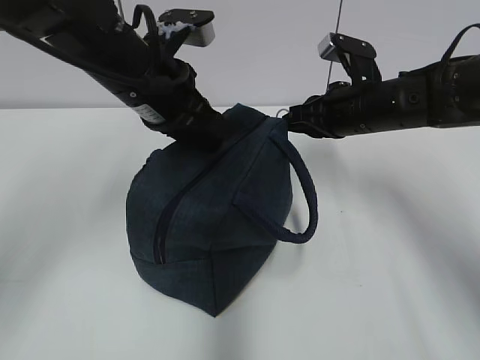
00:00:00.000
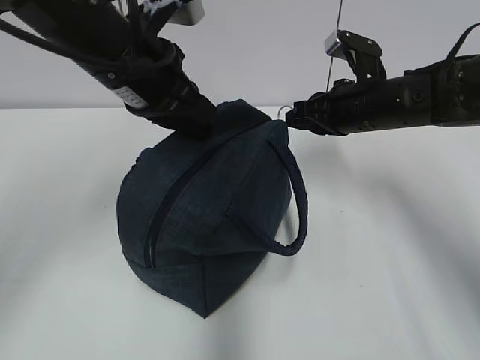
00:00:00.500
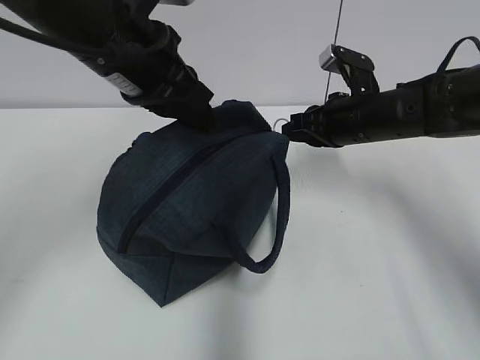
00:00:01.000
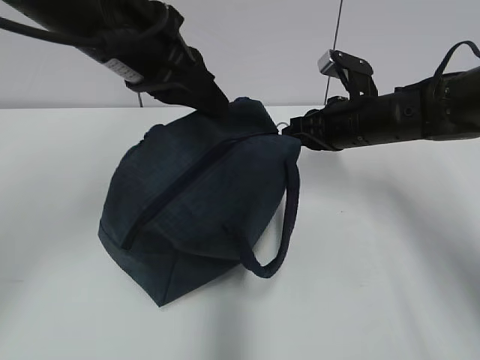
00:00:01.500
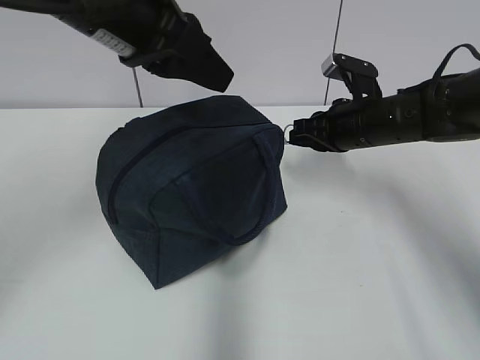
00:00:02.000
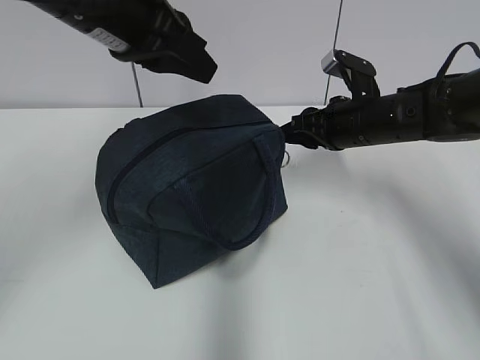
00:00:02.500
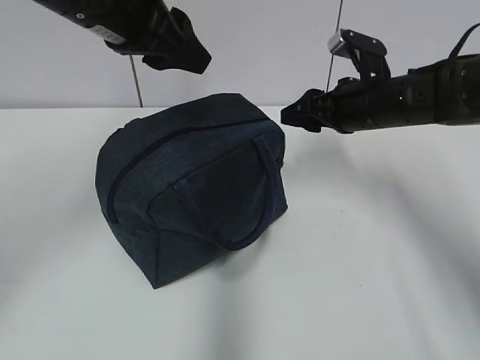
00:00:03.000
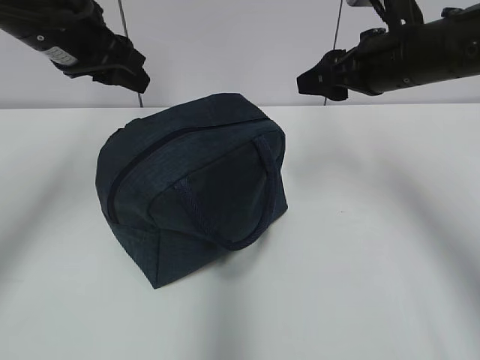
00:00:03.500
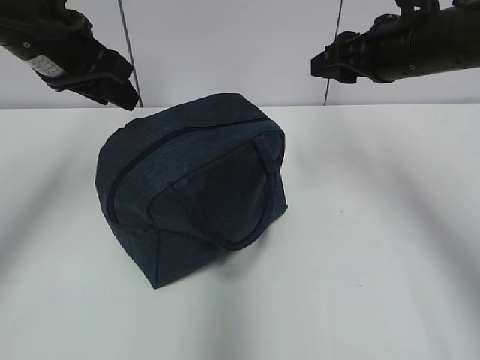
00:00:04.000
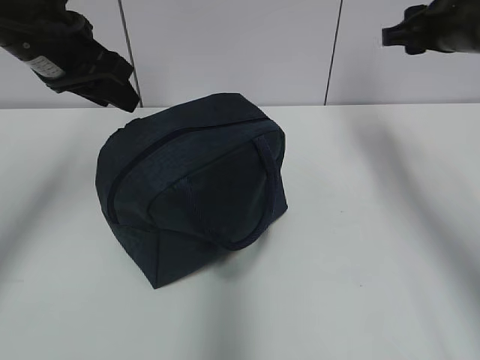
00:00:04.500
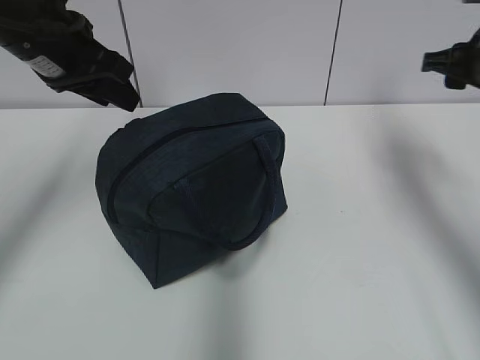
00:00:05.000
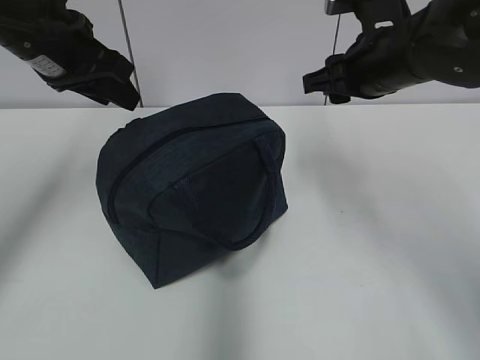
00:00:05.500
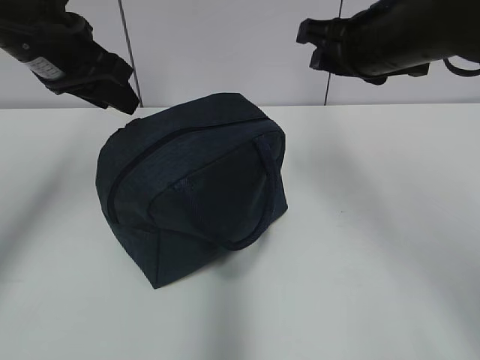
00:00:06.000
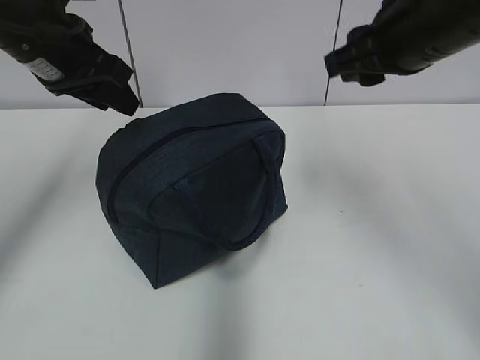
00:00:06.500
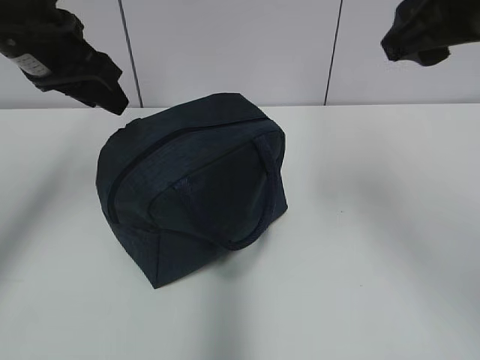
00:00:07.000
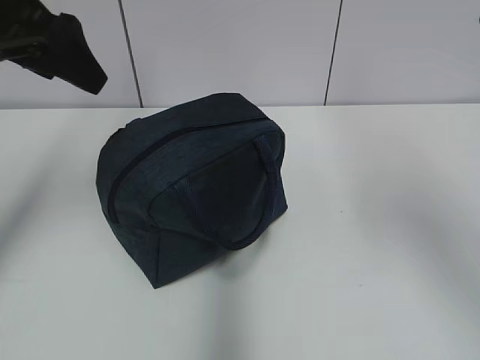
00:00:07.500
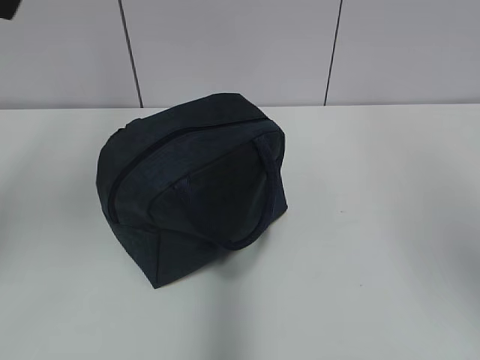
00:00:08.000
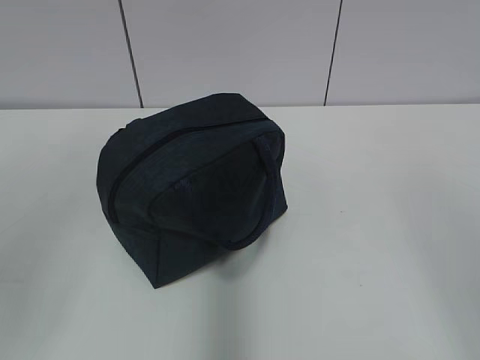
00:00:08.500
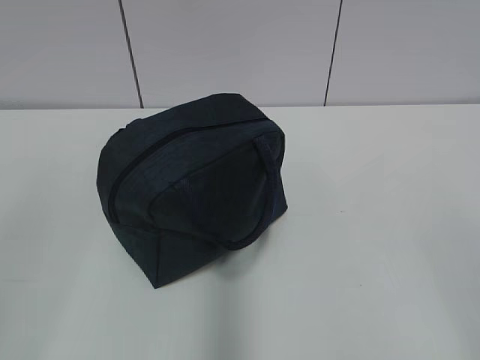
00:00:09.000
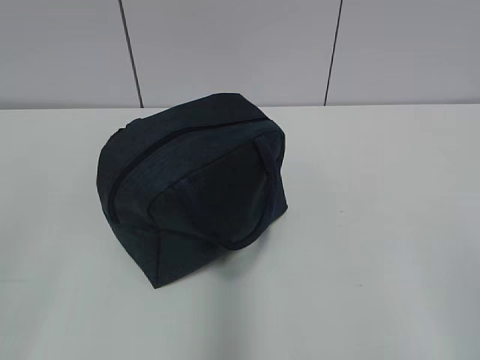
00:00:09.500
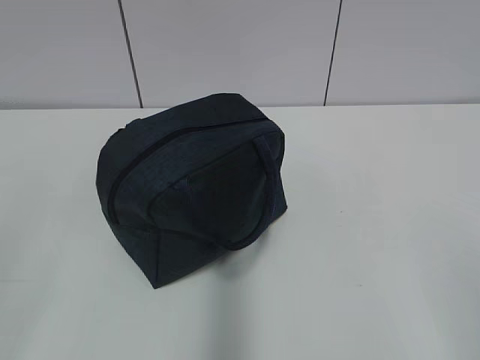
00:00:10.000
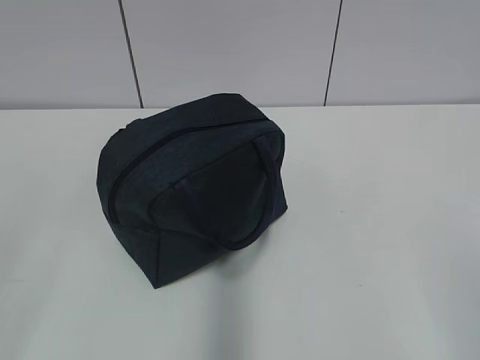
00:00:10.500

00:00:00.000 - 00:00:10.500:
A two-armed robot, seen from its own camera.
Step, 00:00:01.500 - 00:00:02.000: Pull the zipper with your right hand.
00:00:00.000 - 00:00:02.000: The left gripper travels upward by roughly 10 cm.
00:00:02.000 - 00:00:04.000: The left gripper goes approximately 10 cm to the left and forward, and opens up. The right gripper is displaced upward by approximately 10 cm, and opens its fingers.
00:00:04.000 - 00:00:06.500: The right gripper moves backward, approximately 5 cm, and travels to the right and back again, roughly 10 cm each way.
00:00:06.500 - 00:00:08.500: The grippers both shift backward by about 25 cm. The left gripper opens up.

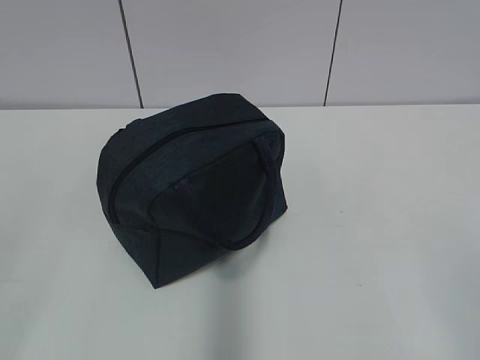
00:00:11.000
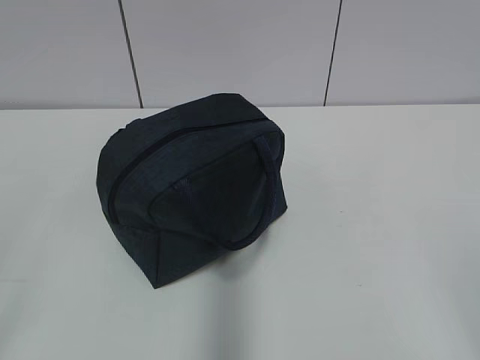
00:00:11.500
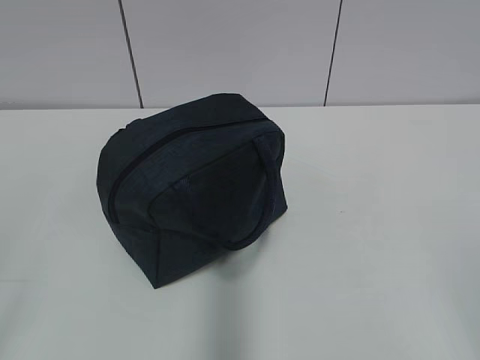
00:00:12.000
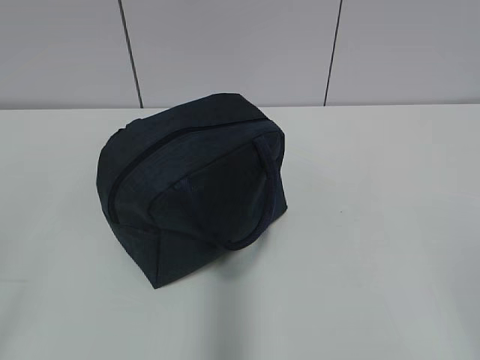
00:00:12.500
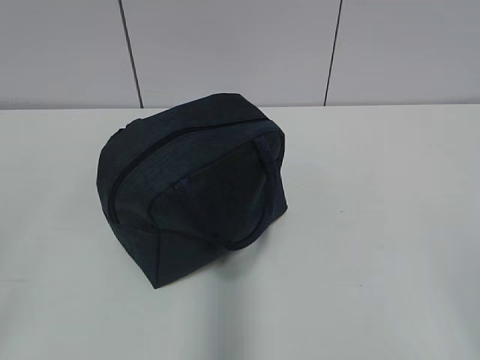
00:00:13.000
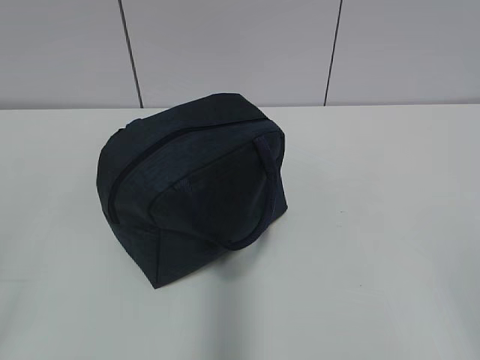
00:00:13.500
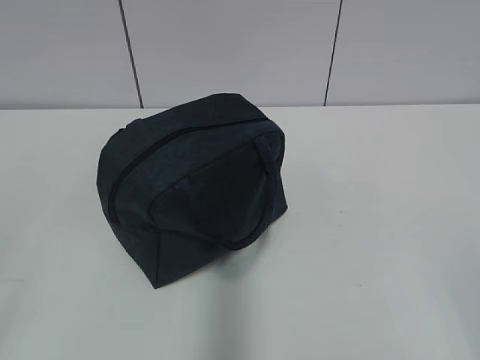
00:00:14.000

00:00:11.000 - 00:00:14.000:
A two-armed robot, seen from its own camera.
00:00:12.500 - 00:00:14.000: Both grippers stay put.

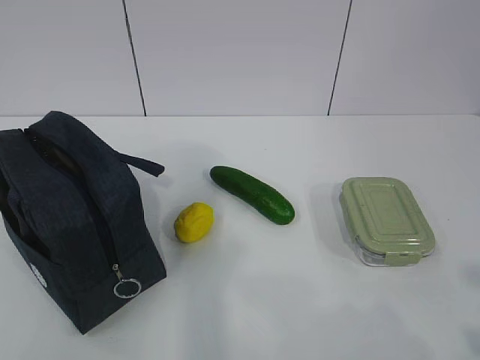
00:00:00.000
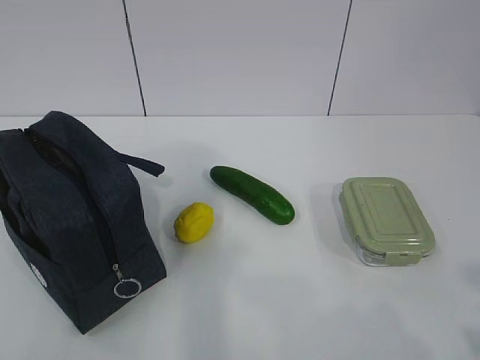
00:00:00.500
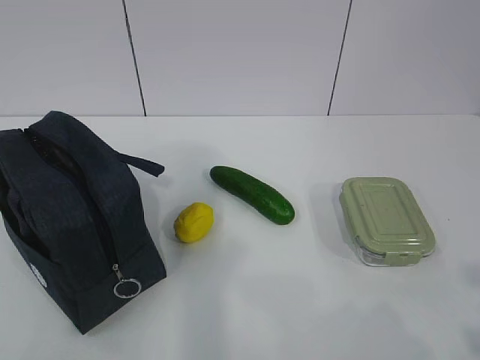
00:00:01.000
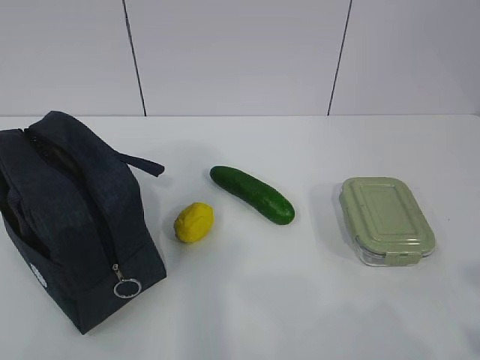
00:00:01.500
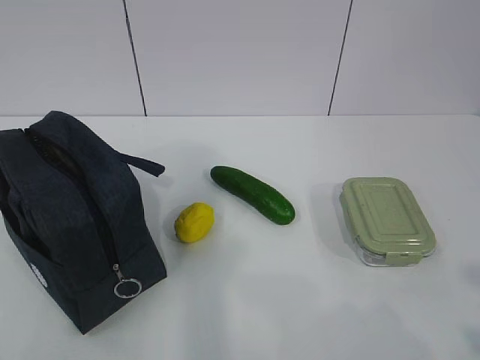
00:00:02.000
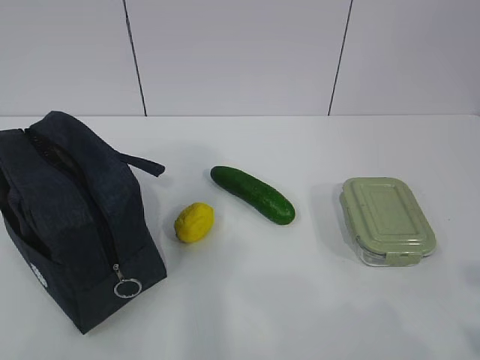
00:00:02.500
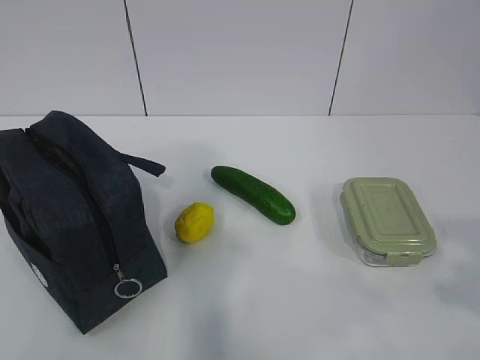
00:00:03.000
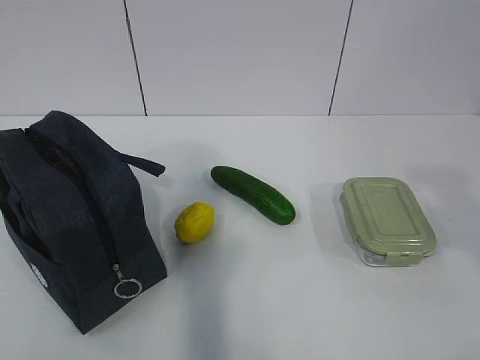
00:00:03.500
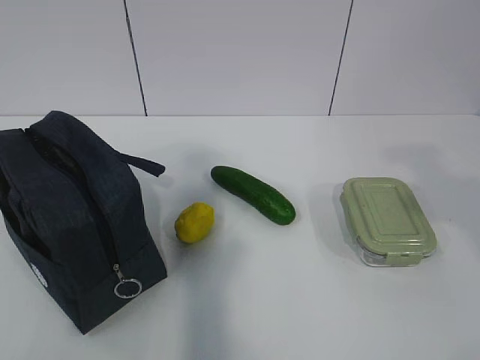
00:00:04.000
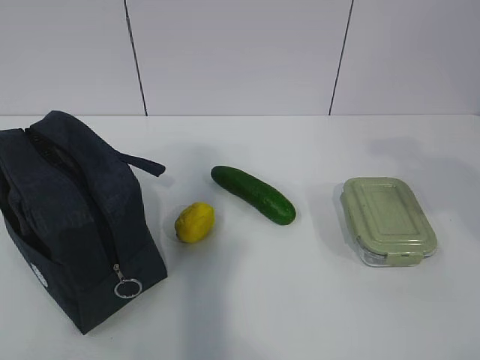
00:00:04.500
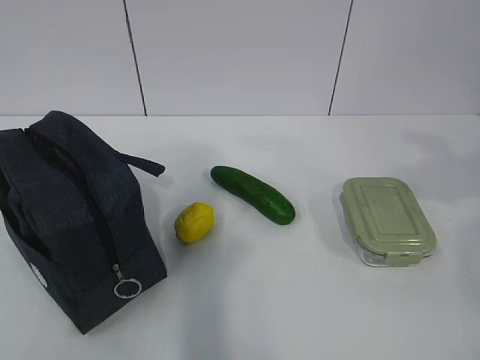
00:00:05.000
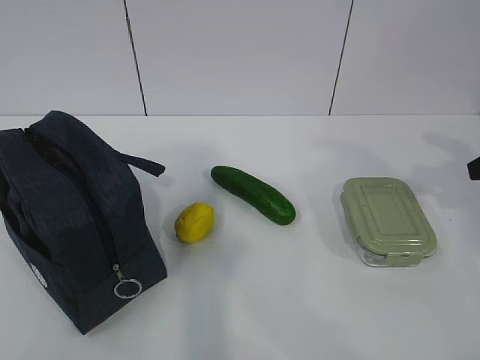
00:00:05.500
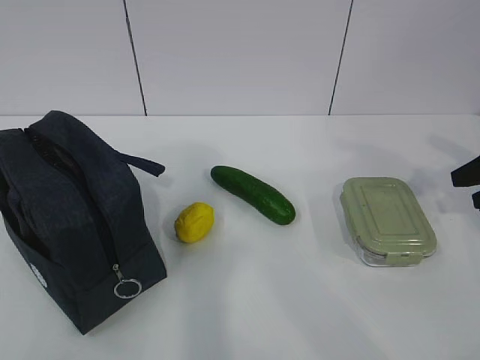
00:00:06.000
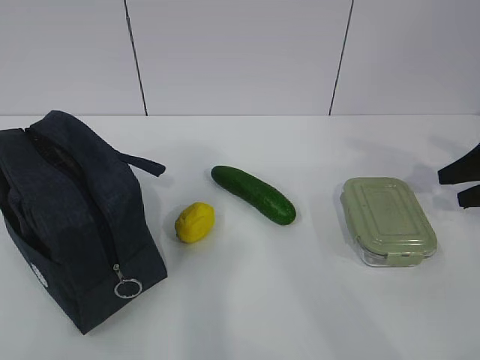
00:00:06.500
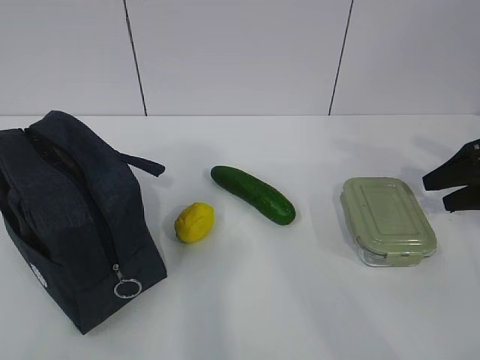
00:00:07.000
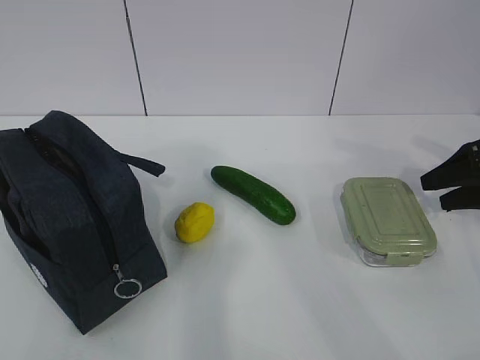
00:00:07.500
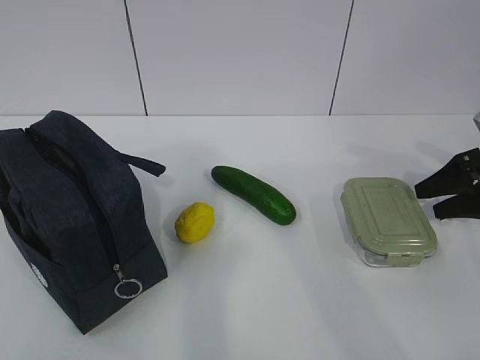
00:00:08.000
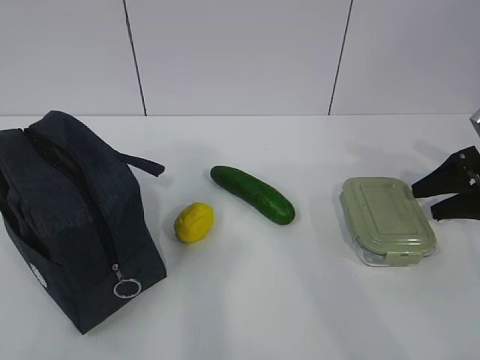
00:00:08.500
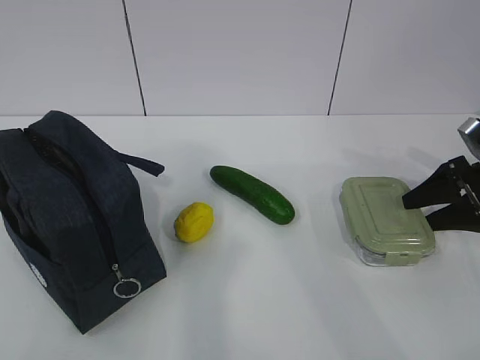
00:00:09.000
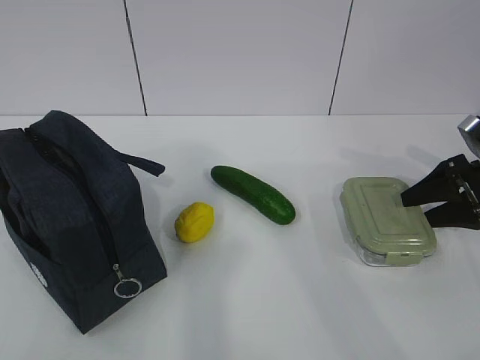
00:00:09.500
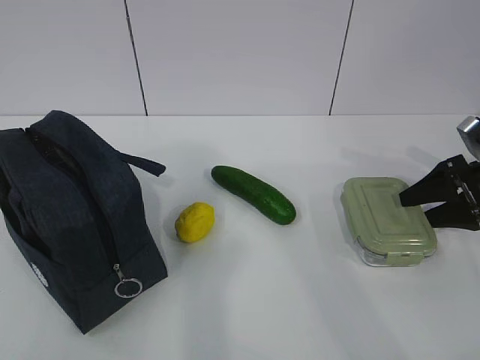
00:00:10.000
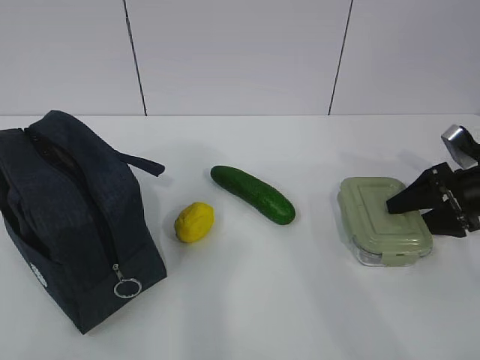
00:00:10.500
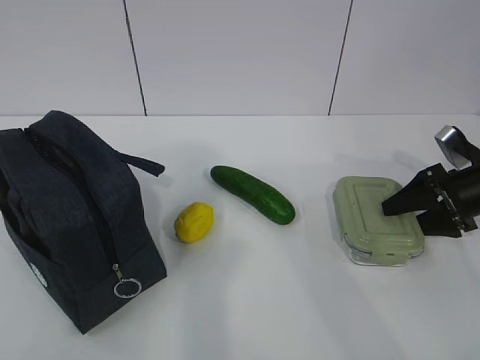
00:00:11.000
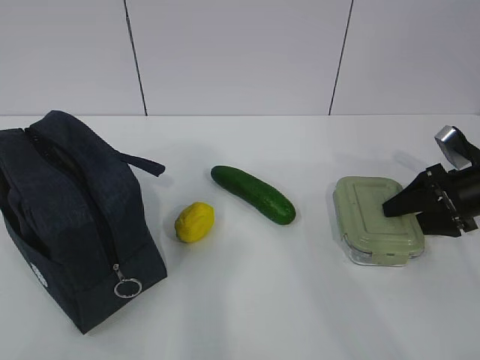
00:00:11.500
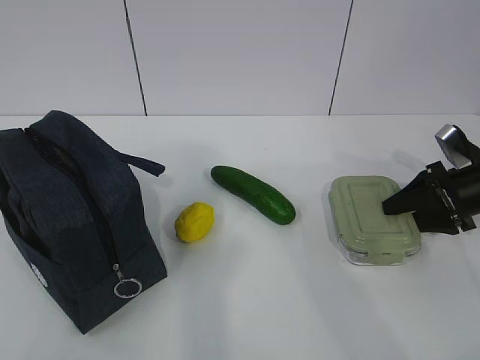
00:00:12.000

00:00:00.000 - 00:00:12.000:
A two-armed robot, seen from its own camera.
00:00:02.000 - 00:00:04.000: The right gripper travels forward and upward by approximately 15 cm.
00:00:04.000 - 00:00:06.000: The right gripper travels forward, downward and to the right by roughly 25 cm.
00:00:06.000 - 00:00:08.000: The right gripper is displaced downward by roughly 5 cm.
00:00:08.000 - 00:00:12.000: The grippers move only a little.
